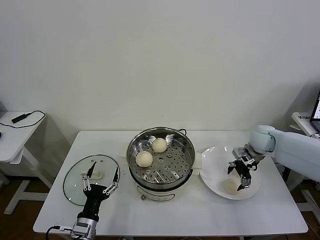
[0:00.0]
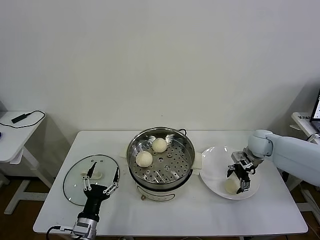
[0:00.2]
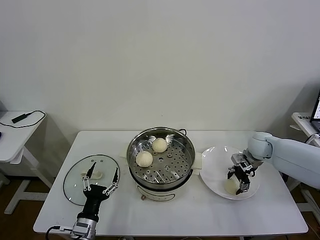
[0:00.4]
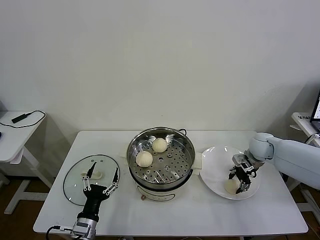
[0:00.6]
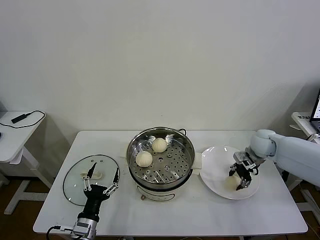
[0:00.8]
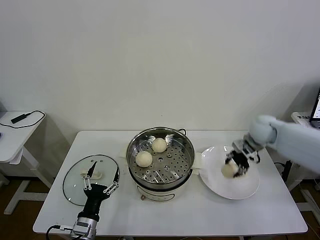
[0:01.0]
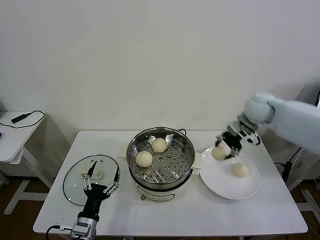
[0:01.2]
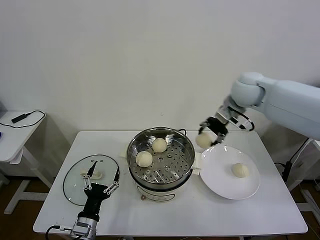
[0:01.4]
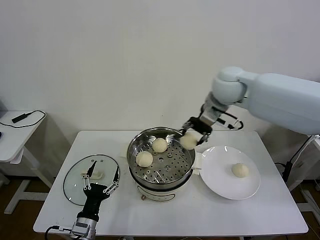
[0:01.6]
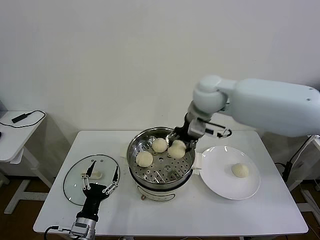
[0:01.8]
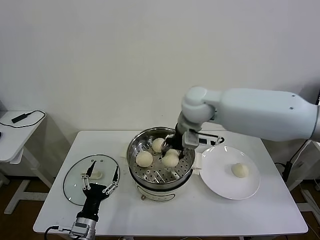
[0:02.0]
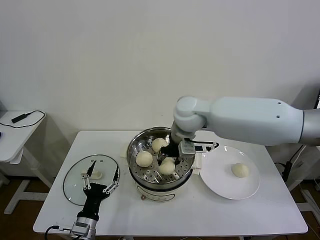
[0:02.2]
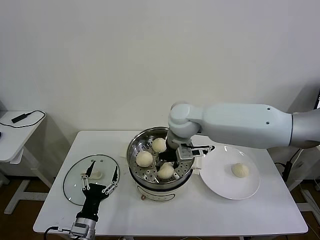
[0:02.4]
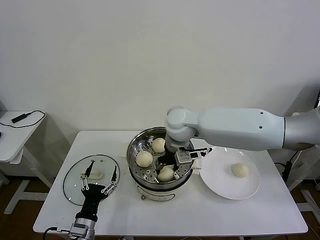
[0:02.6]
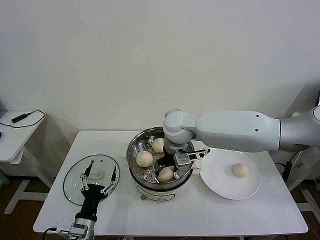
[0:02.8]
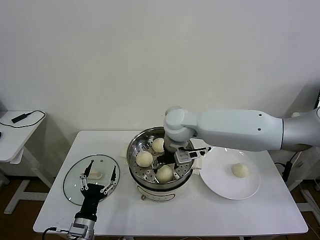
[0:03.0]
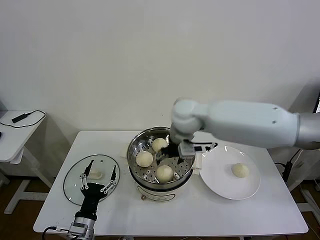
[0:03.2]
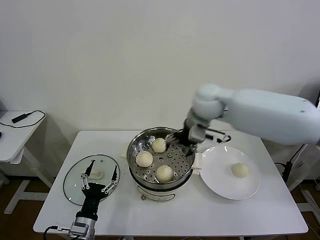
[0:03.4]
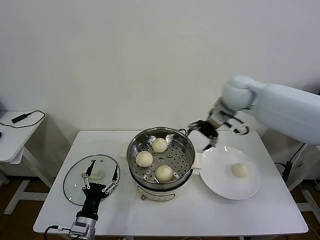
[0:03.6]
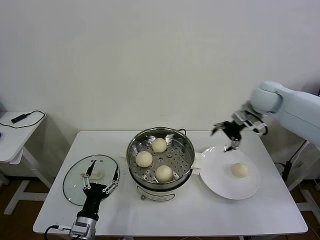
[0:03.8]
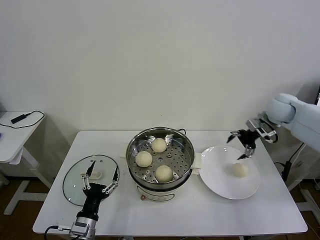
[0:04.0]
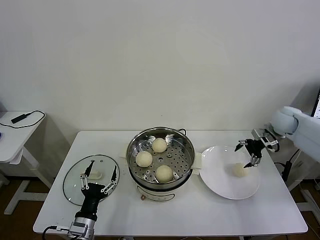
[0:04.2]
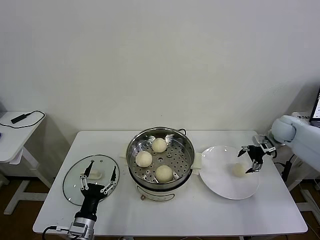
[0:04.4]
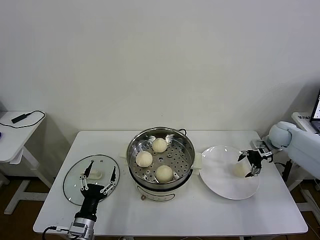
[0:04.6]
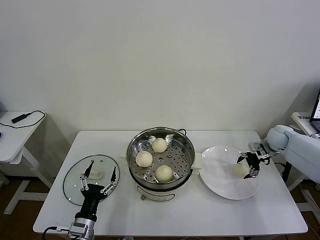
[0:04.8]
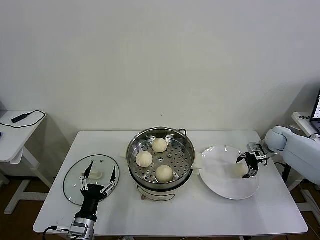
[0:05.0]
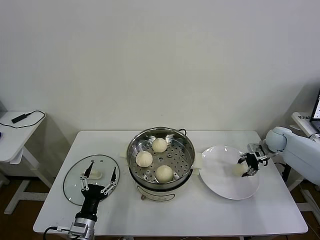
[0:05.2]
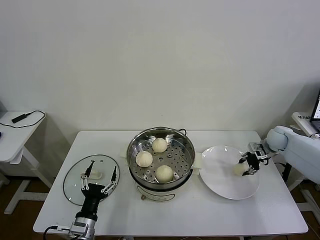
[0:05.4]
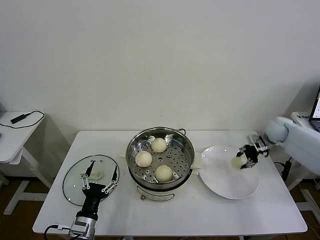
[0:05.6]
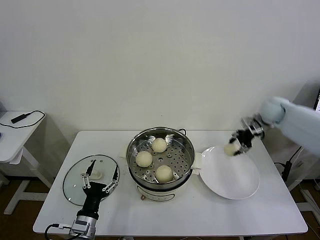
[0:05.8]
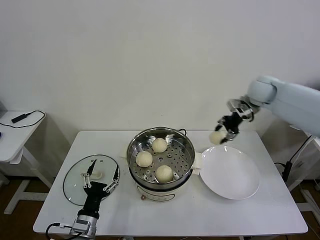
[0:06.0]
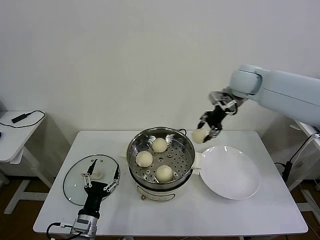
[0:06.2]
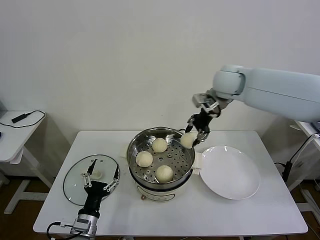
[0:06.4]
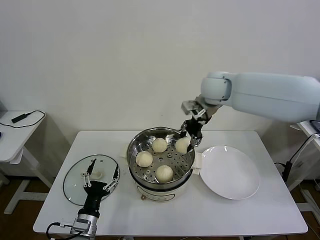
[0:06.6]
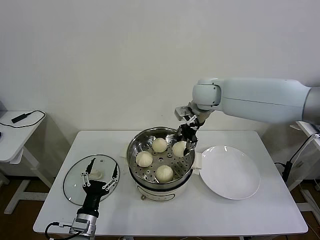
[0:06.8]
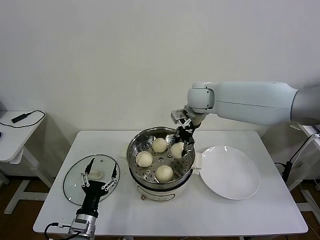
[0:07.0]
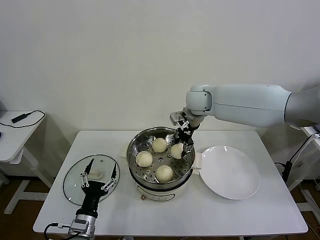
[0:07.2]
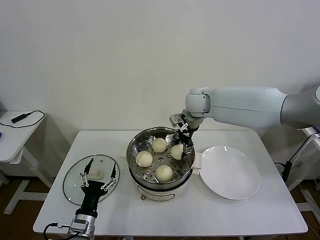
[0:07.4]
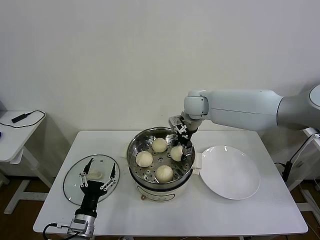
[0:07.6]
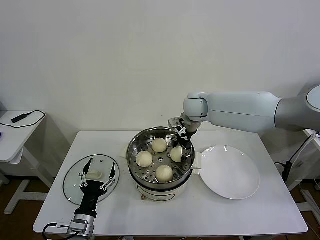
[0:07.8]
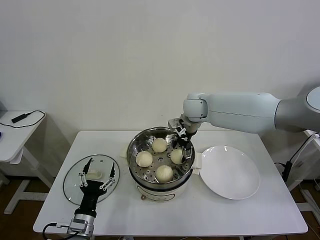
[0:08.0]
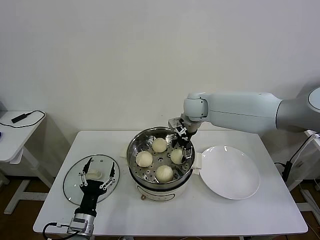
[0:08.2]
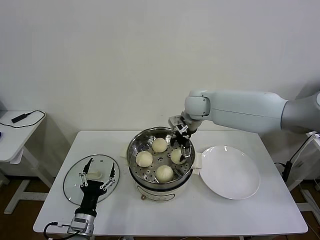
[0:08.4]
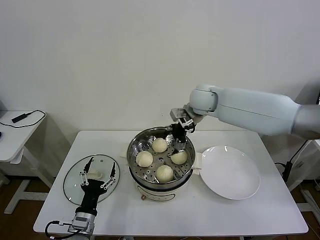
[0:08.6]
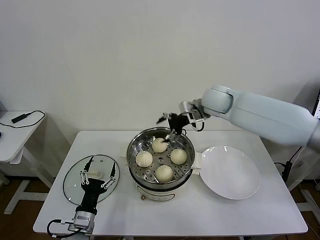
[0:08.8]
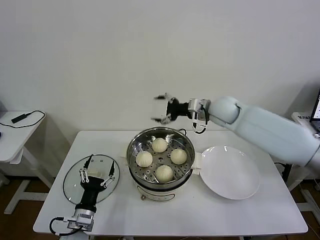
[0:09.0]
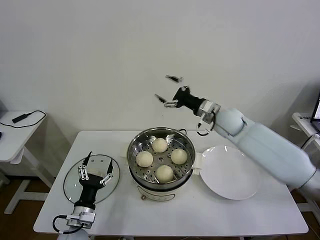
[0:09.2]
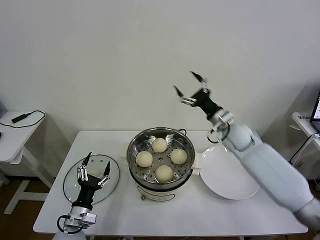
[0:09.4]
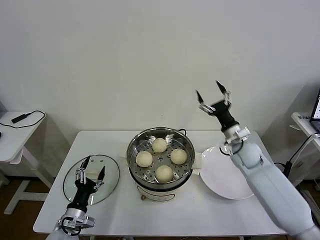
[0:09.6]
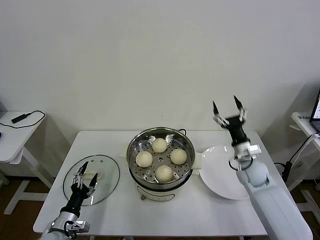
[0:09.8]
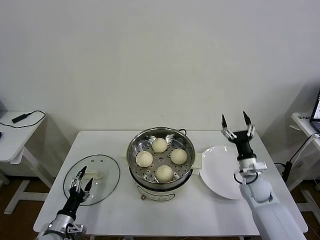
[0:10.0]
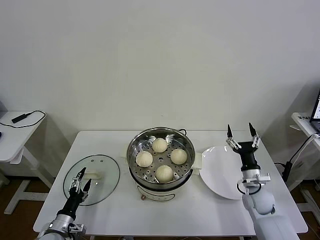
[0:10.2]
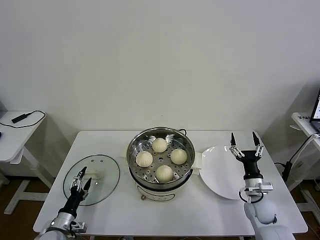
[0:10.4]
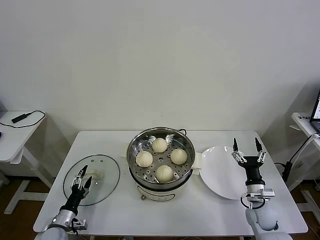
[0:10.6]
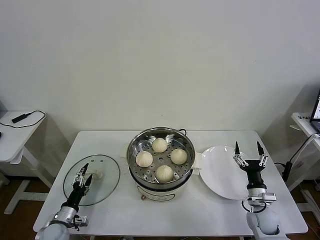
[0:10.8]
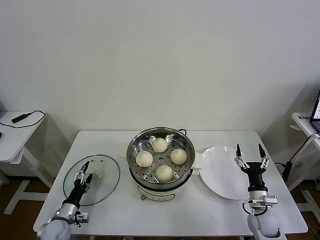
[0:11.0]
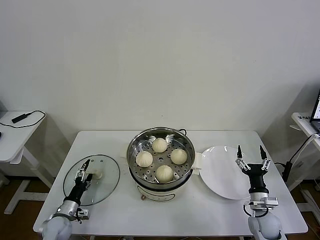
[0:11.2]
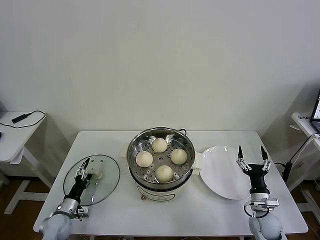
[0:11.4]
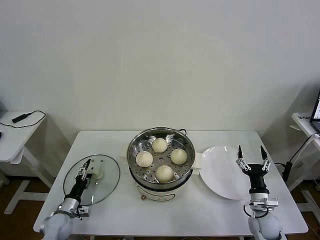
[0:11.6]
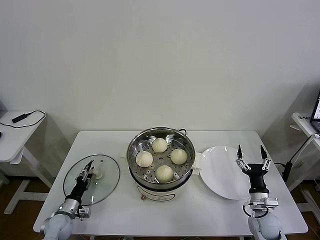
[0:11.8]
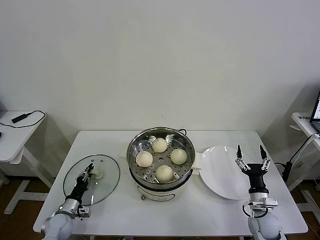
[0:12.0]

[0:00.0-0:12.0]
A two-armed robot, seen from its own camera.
Task of the whole recording: take steamed baozi put them in steamer then cover it.
Step, 0:00.8 to 0:02.8: Place the baozi on the steamer with right gripper.
Step, 0:03.0 to 0:05.2: Grasp the baozi in the plate with right gripper.
Step, 0:05.4 to 0:08.0: Place the baozi on the steamer with right gripper.
0:00.0 to 0:01.6: The right gripper heads upward and to the left, covering some 30 cm, and closes.
0:01.6 to 0:03.0: The right gripper goes approximately 15 cm to the left and downward, and opens up.
0:03.0 to 0:04.4: The right gripper heads to the right, covering roughly 40 cm.
0:04.4 to 0:06.0: The right gripper travels upward and to the left by roughly 20 cm, and closes.
0:06.0 to 0:07.6: The right gripper heads to the left, covering roughly 20 cm.
0:07.6 to 0:09.0: The right gripper travels to the right by some 10 cm, and opens.
0:09.0 to 0:10.4: The right gripper moves downward, backward and to the right, about 40 cm. Meanwhile the left gripper heads to the left and downward, covering about 15 cm.
0:10.4 to 0:12.0: The left gripper travels forward by some 5 cm, and closes up. Meanwhile the right gripper ends up about 5 cm from where it was.

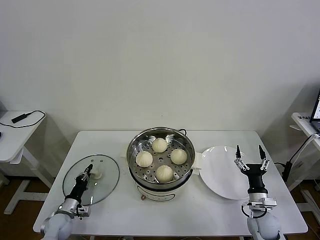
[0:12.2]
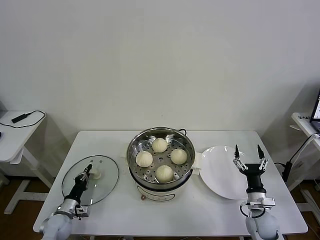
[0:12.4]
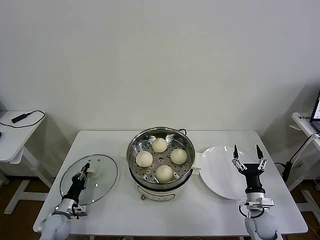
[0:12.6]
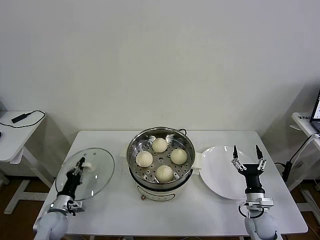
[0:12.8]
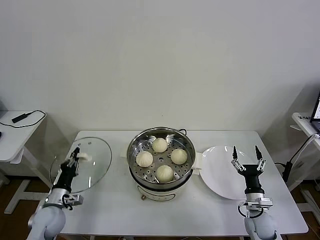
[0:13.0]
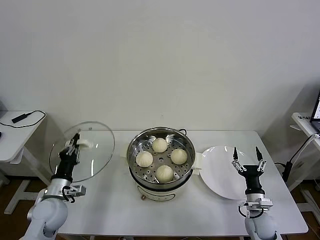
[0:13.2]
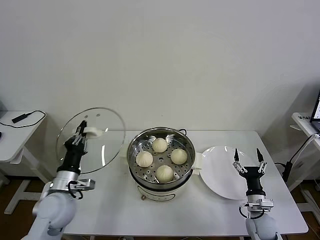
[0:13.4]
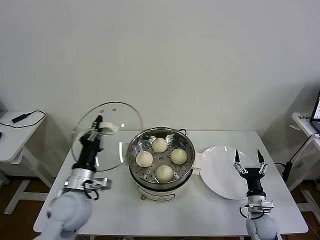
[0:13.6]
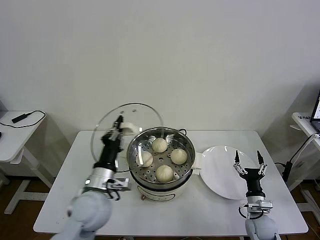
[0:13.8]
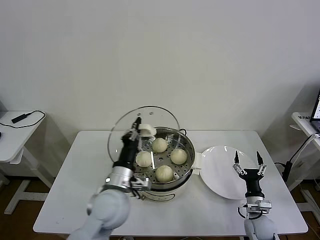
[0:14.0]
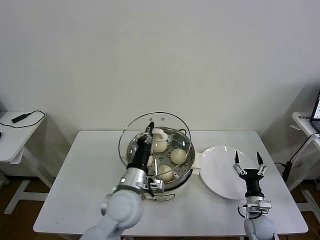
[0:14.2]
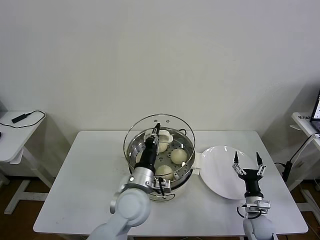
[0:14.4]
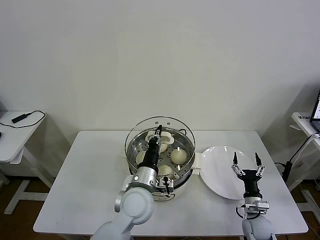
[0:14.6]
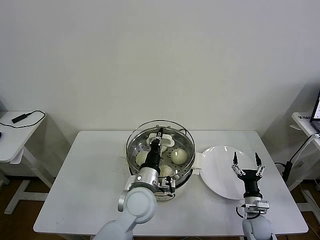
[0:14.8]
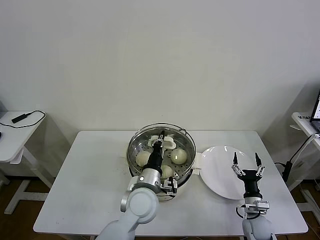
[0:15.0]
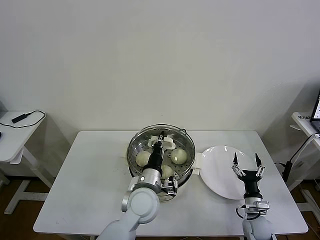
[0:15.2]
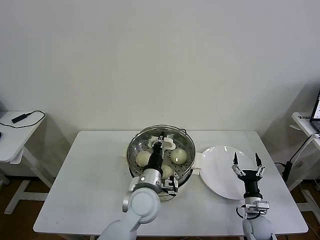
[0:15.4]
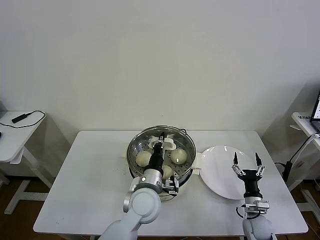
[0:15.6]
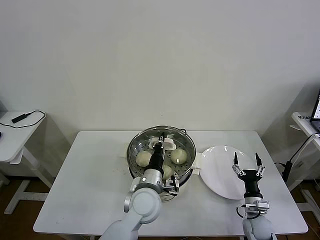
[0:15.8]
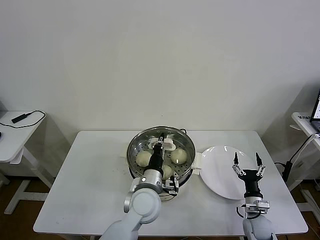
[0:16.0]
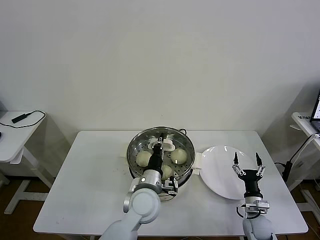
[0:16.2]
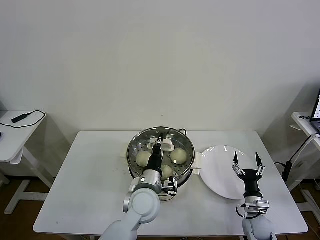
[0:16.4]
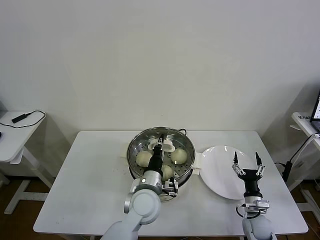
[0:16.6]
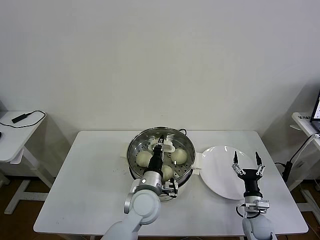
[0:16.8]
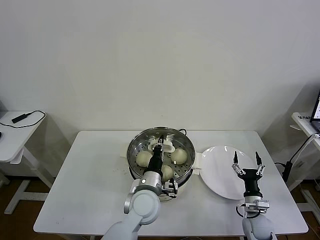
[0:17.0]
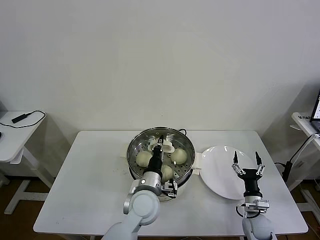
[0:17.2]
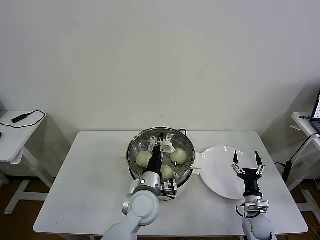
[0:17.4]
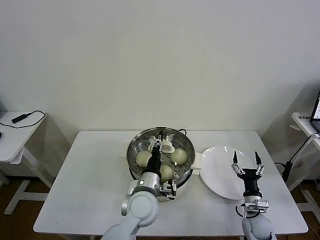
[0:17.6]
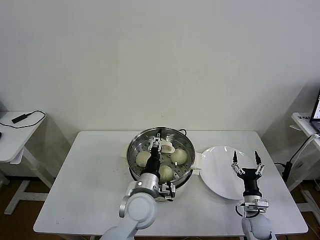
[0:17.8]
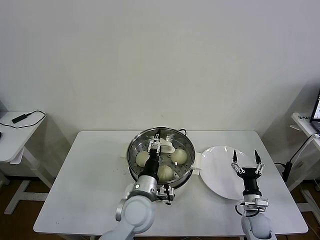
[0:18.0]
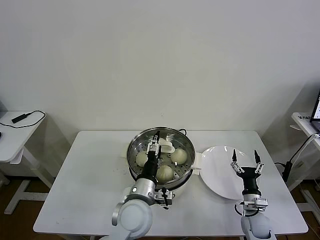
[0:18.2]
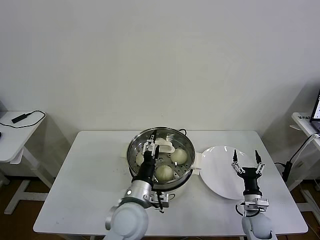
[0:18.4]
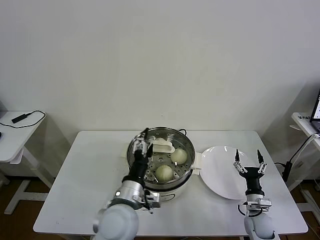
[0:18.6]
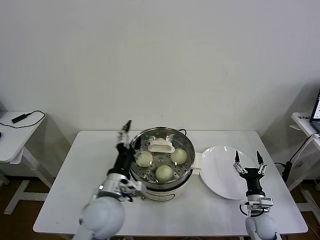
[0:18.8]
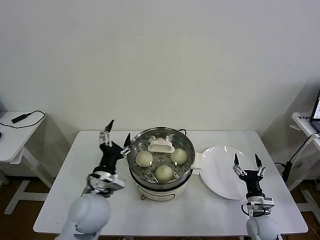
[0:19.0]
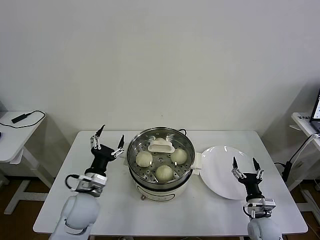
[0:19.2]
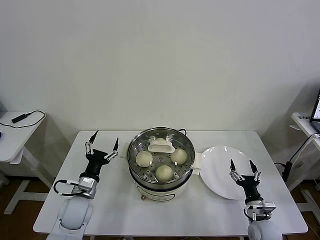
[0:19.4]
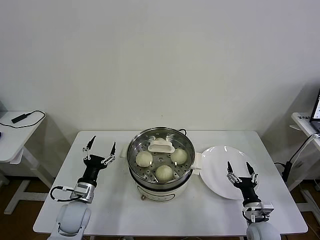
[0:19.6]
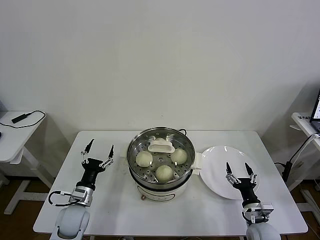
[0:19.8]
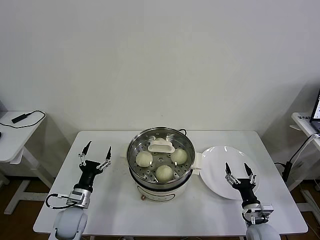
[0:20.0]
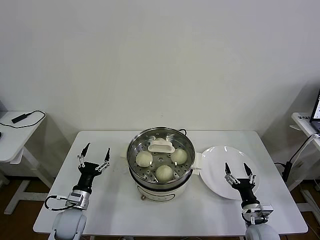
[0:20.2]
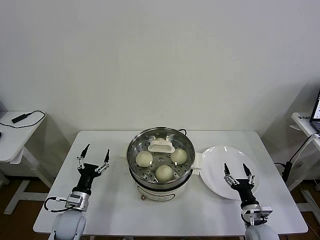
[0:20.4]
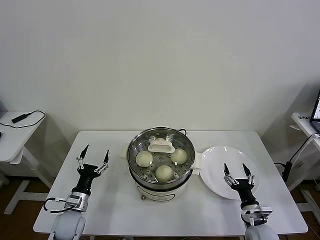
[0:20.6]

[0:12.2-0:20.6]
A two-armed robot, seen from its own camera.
Task of the whole recording: take steamed baozi put them in steamer then cover it.
Step, 0:12.4 to 0:17.4: Place the pot lid on the steamer with left gripper.
0:12.2 to 0:13.6: The left gripper travels upward and to the right by some 25 cm.
0:13.6 to 0:15.0: The left gripper shifts approximately 20 cm to the right.
0:15.0 to 0:16.4: The grippers stay close to where they were, moving slightly.
0:16.4 to 0:17.8: The left gripper opens its fingers.
0:17.8 to 0:19.2: The left gripper heads to the left, covering roughly 15 cm.
0:19.2 to 0:20.6: The left gripper travels downward and to the left by approximately 15 cm.
